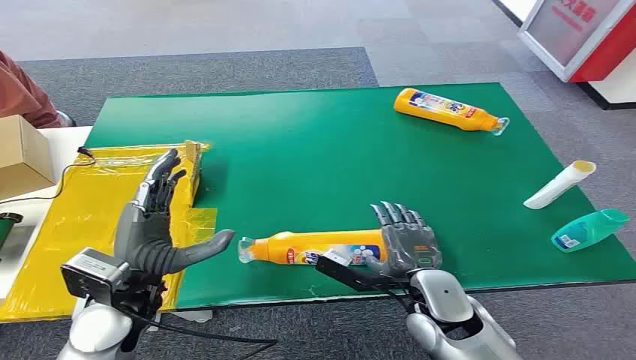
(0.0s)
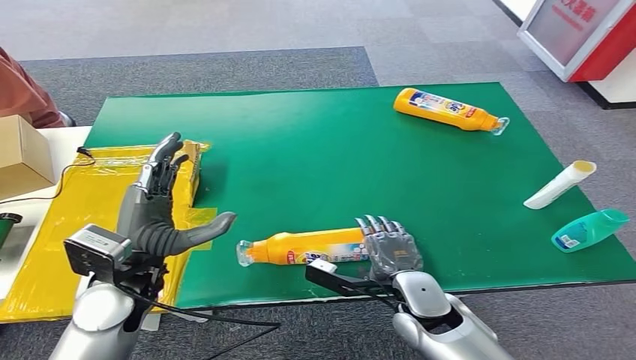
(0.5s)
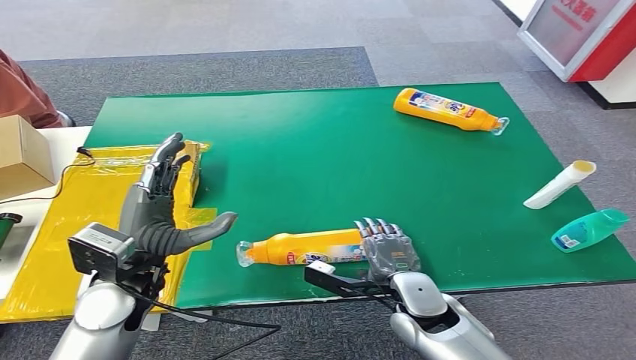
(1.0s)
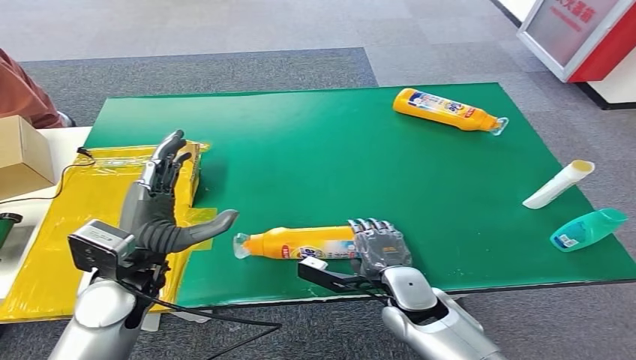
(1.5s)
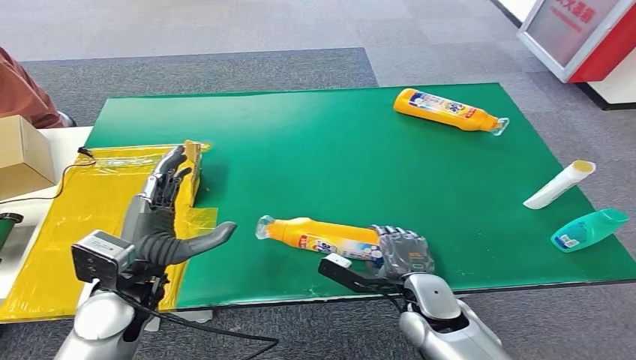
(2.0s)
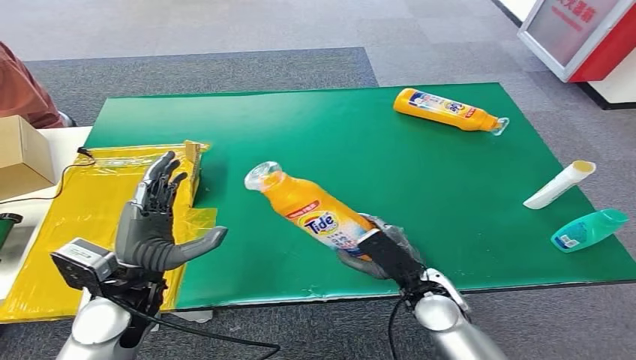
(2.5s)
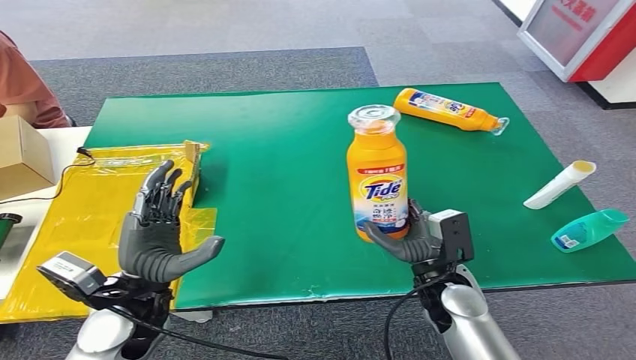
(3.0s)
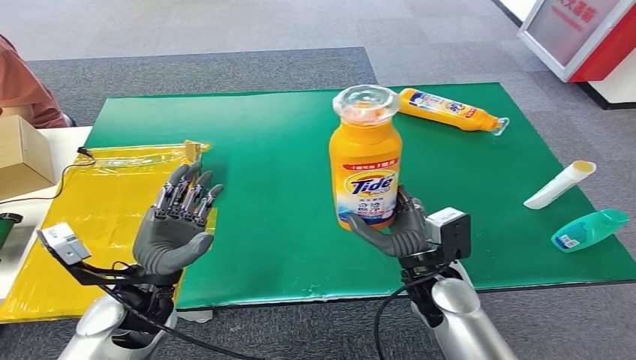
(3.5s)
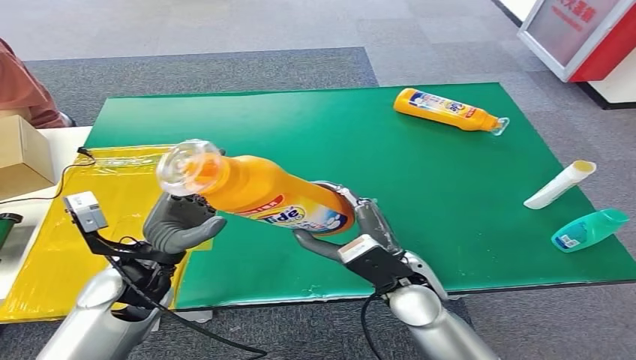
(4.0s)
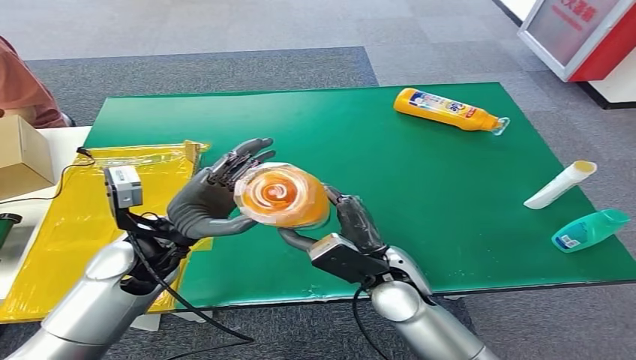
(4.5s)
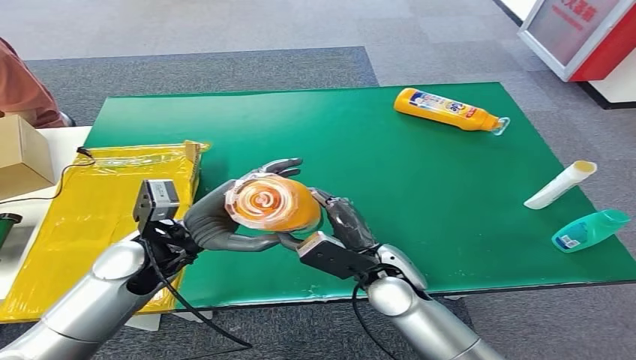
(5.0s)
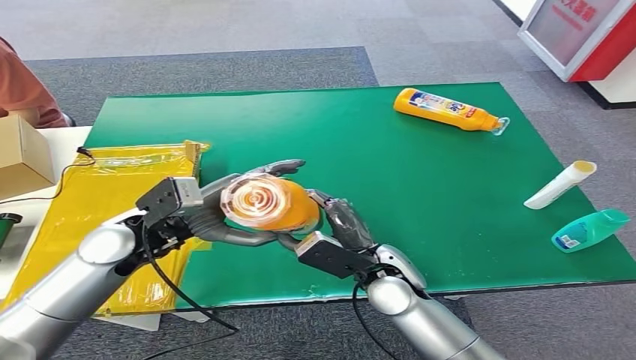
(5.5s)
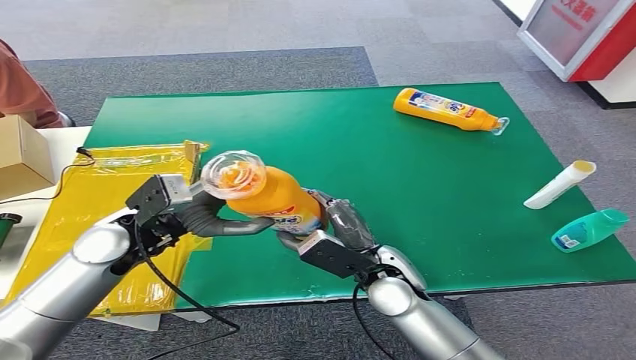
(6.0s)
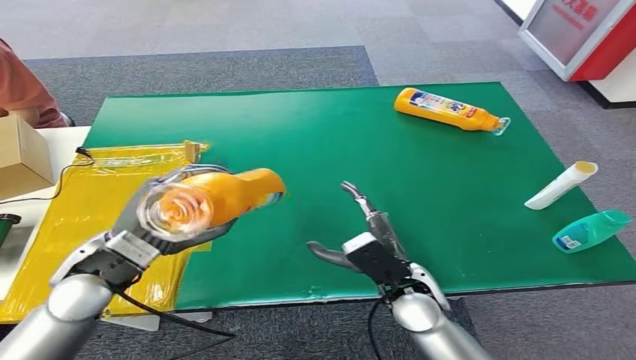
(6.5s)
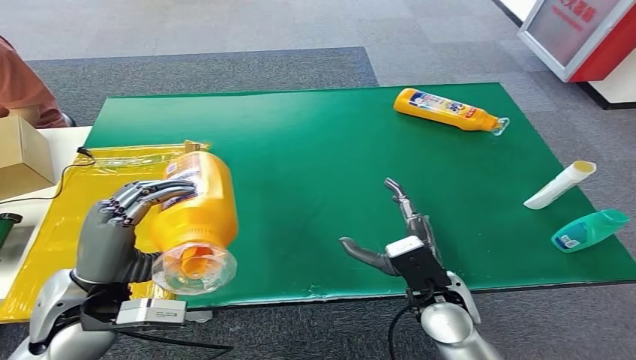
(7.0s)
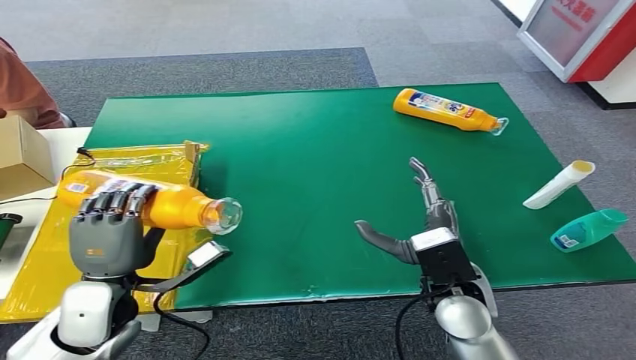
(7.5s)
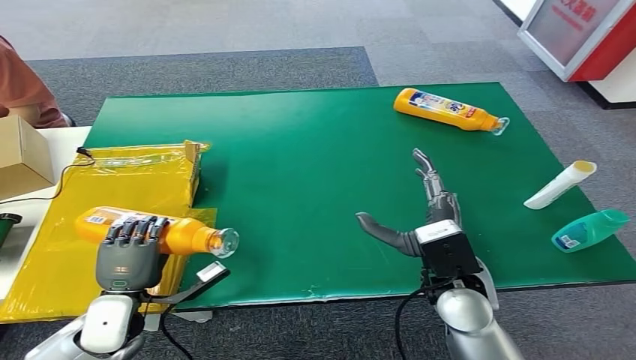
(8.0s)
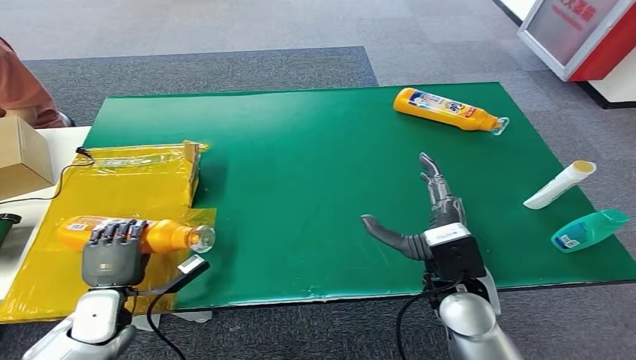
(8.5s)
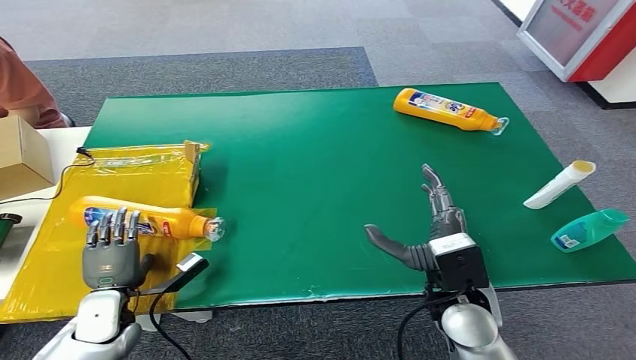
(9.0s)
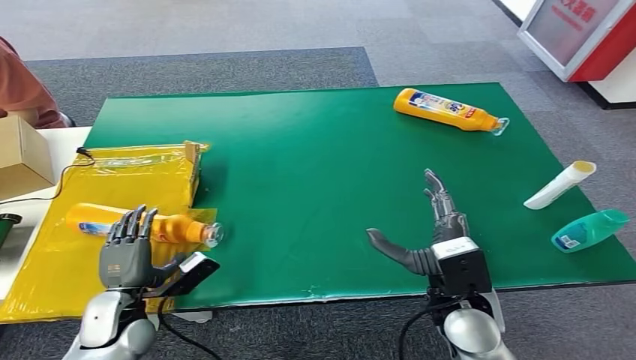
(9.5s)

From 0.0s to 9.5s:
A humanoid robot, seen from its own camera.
Step, from 0.0s to 3.0s: Pick up the bottle from the table.
Step, from 3.5s to 9.5s: Turn the bottle to the front side.
From 2.0s to 4.0s: The right hand shifts approximately 10 cm upward.
From 4.0s to 5.5s: The left hand moves forward, some 5 cm.
From 7.5s to 9.5s: The left hand heads downward, covering approximately 10 cm.

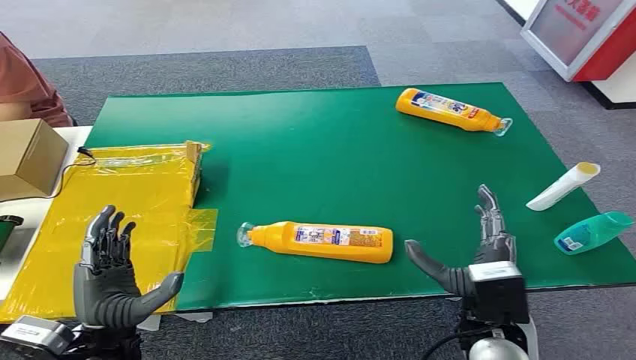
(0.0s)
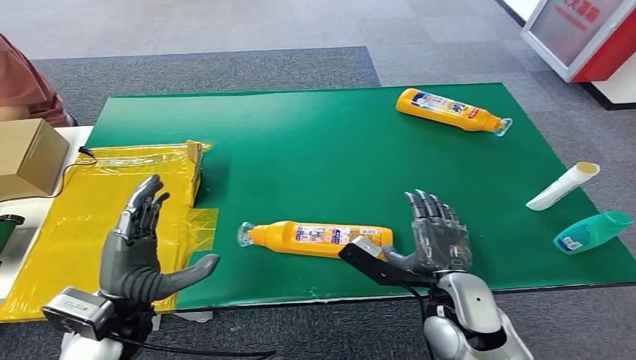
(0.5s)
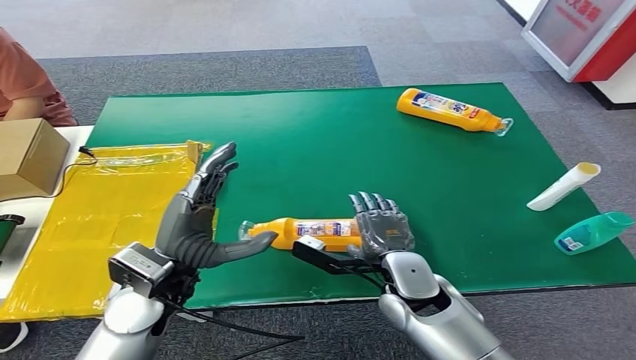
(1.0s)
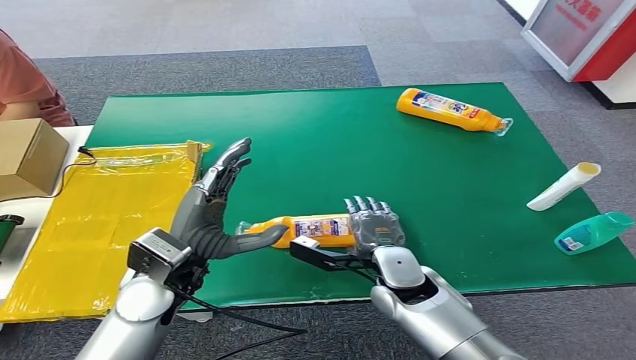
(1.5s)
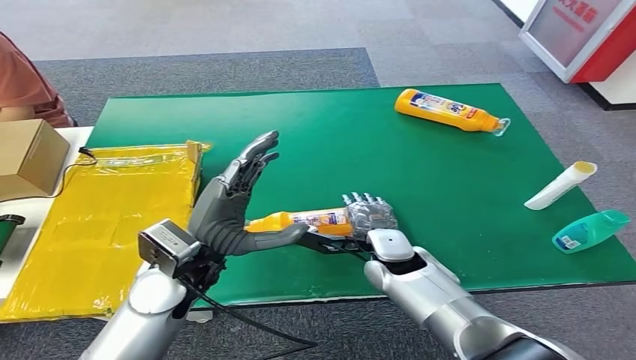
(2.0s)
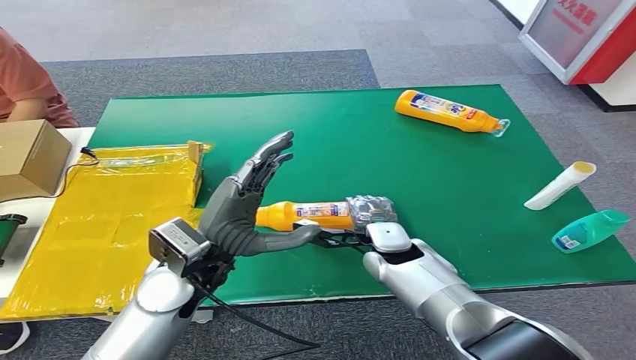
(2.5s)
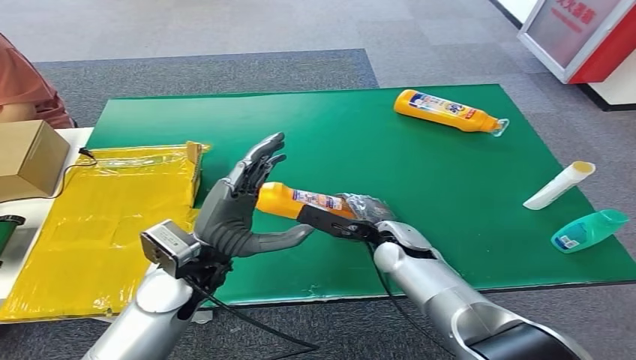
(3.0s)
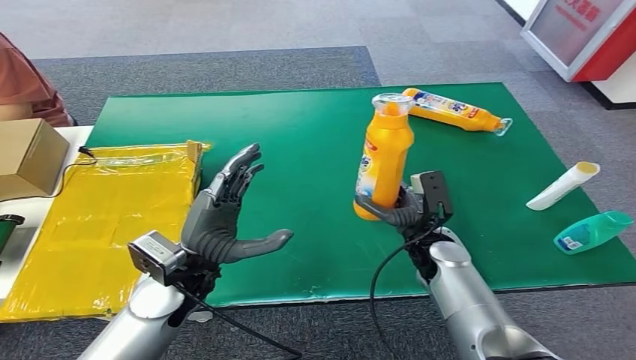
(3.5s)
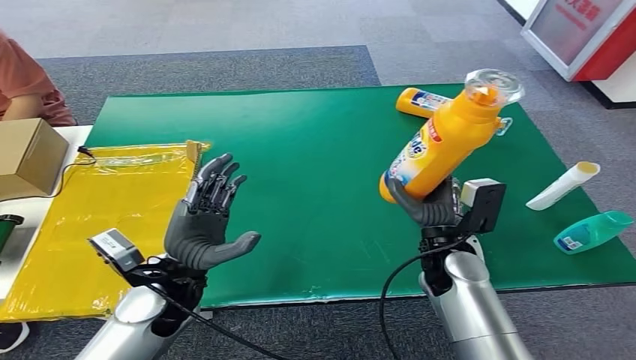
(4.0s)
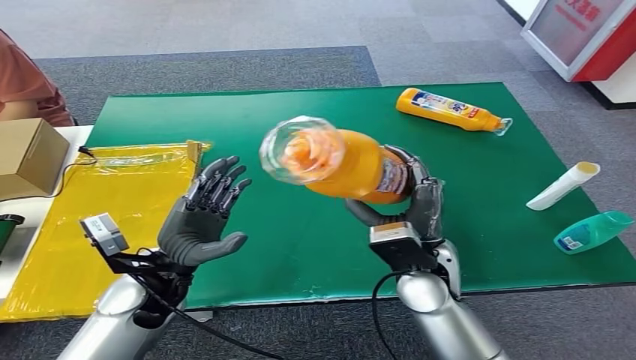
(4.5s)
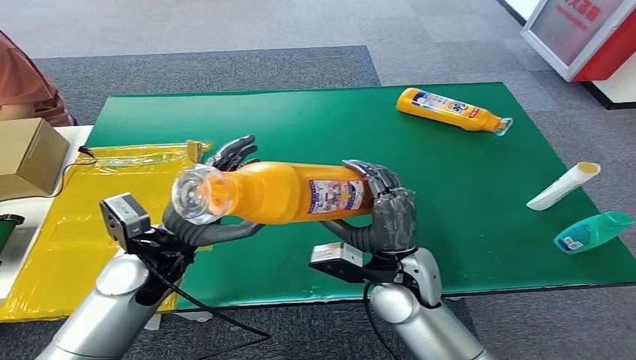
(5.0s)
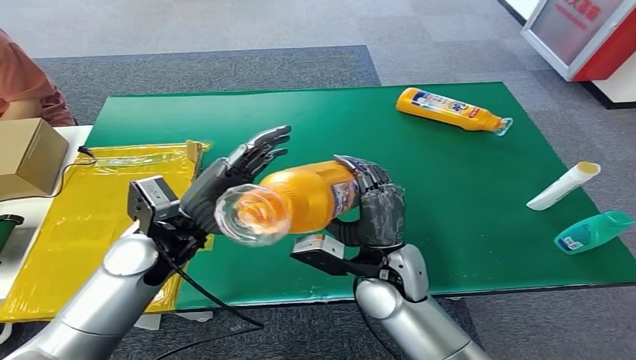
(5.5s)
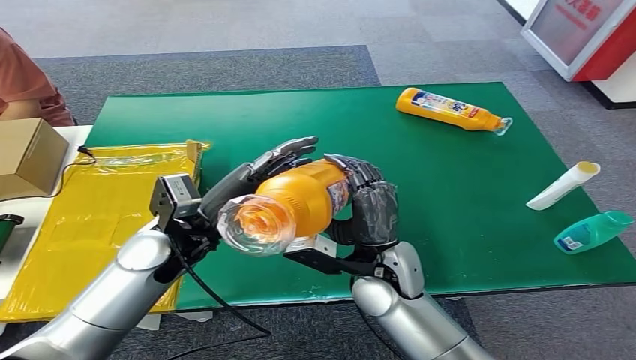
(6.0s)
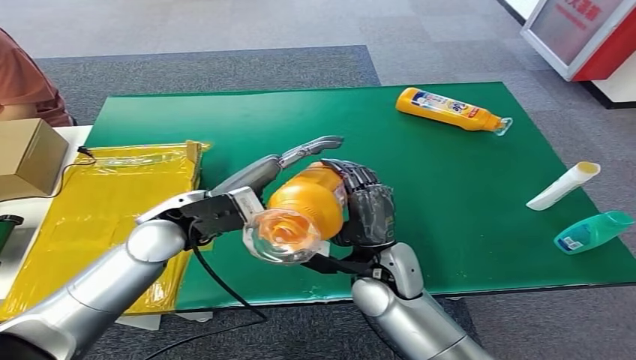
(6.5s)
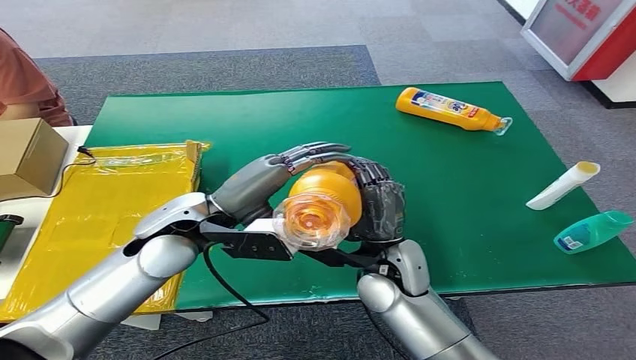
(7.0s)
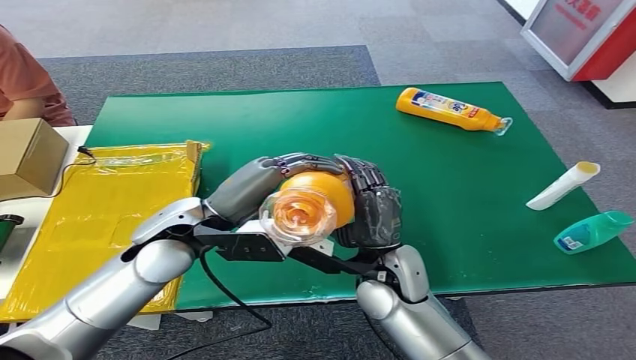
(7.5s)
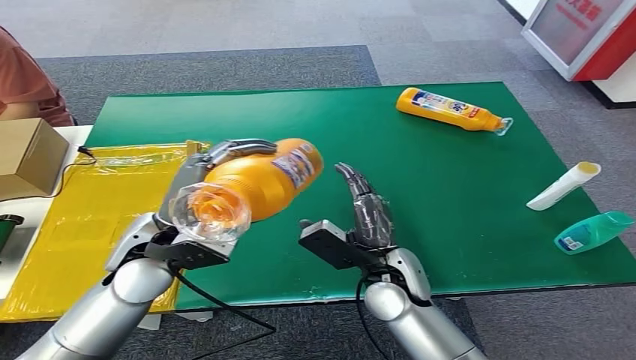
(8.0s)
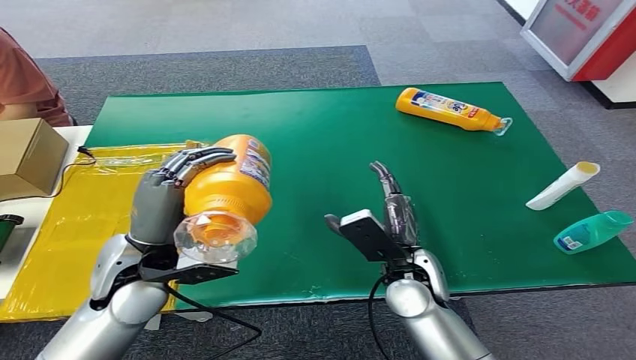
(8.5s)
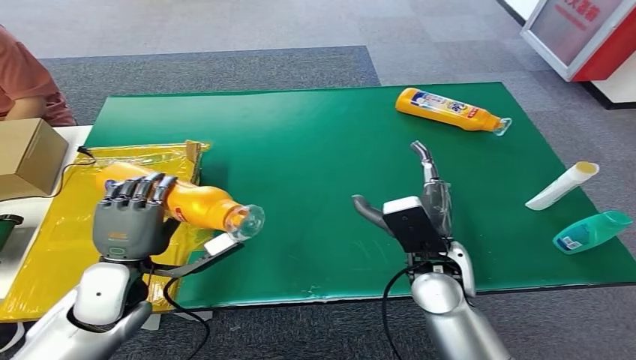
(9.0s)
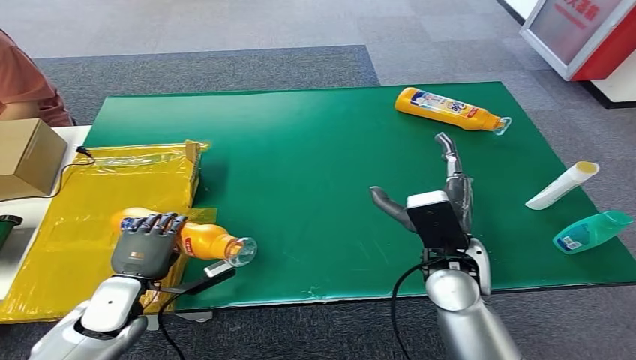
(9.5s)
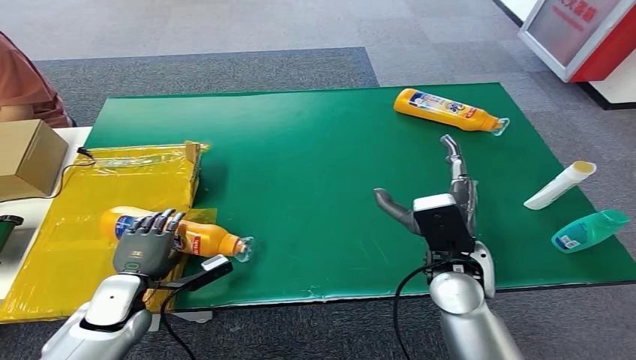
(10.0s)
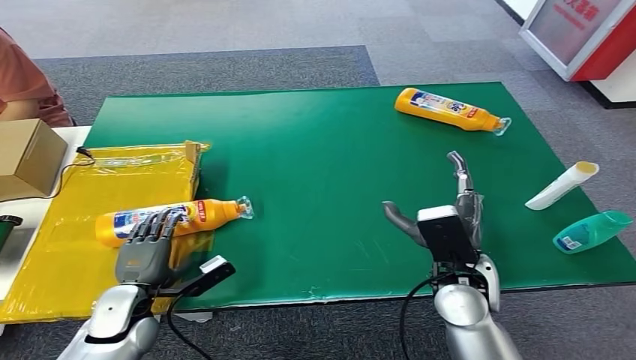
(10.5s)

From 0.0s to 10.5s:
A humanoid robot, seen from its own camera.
Step, from 0.0s to 4.0s: Pick up the bottle from the table.
Step, from 4.5s to 10.5s: Turn the bottle to the front side.
From 6.5s to 8.5s: The left hand moves backward, roughly 5 cm.
From 8.5s to 10.5s: The right hand shifts some 5 cm to the right; the left hand heads downward and to the left, covering approximately 20 cm.
